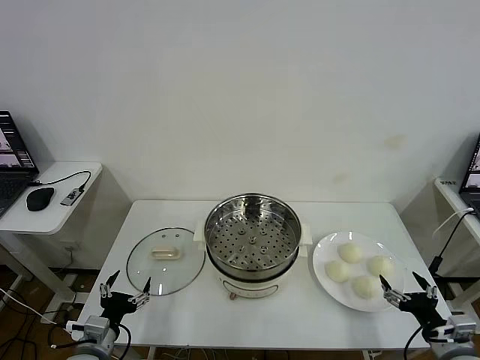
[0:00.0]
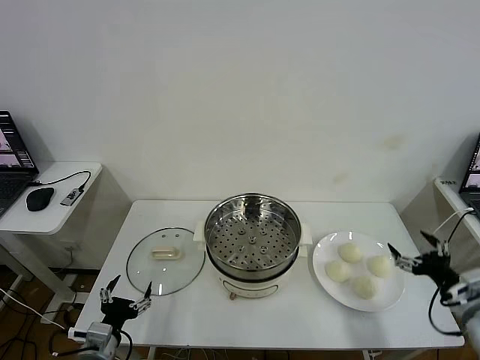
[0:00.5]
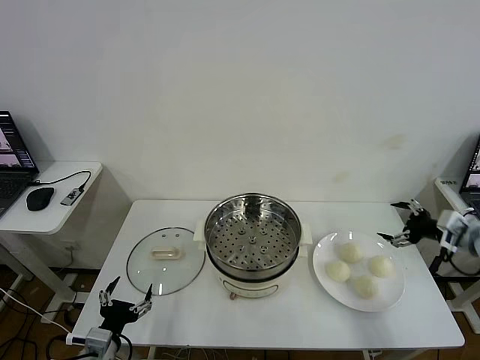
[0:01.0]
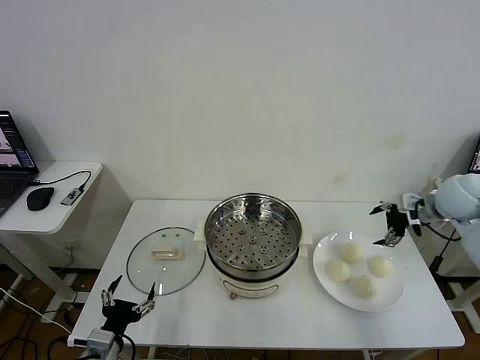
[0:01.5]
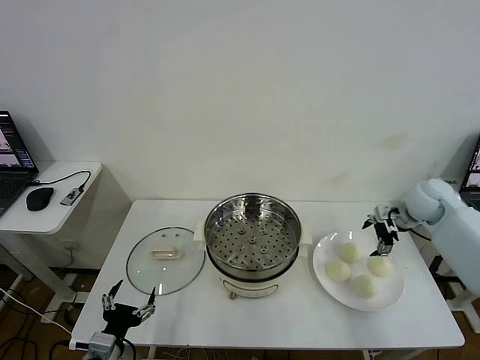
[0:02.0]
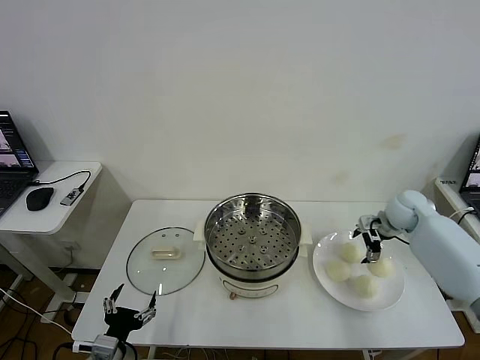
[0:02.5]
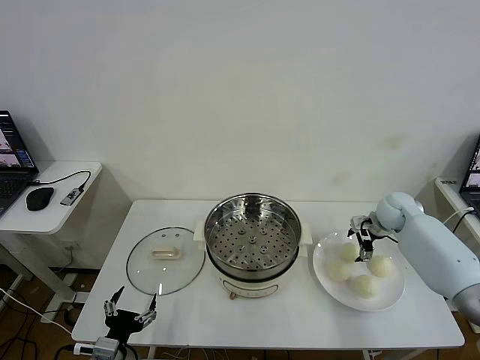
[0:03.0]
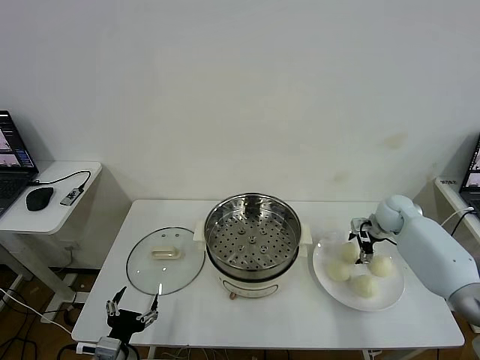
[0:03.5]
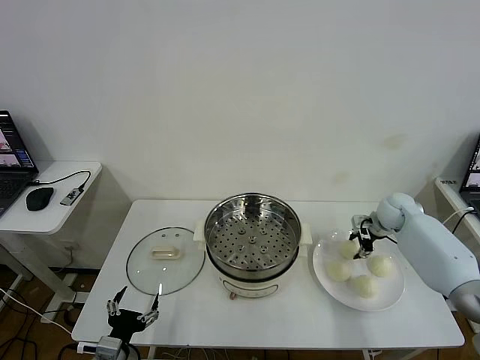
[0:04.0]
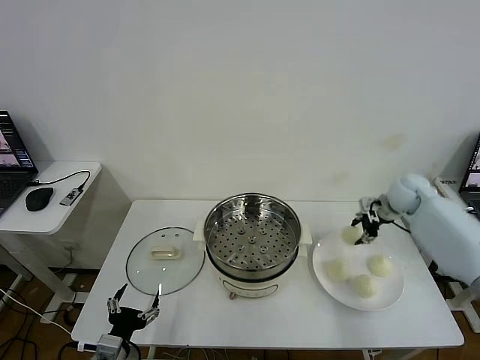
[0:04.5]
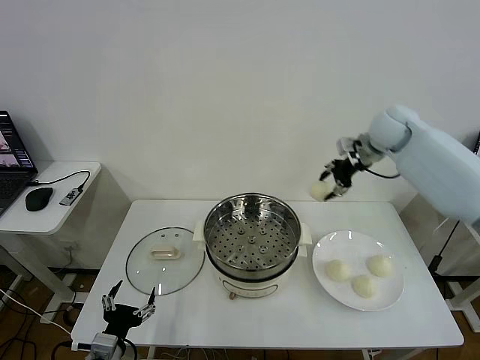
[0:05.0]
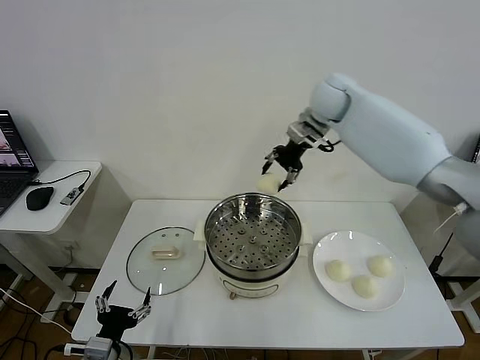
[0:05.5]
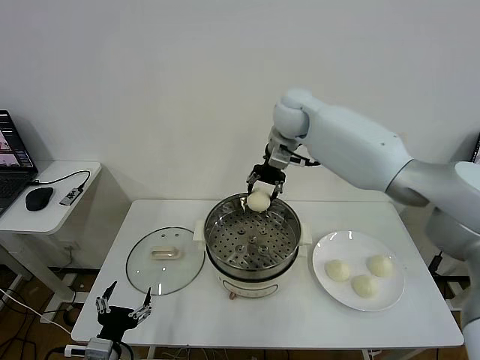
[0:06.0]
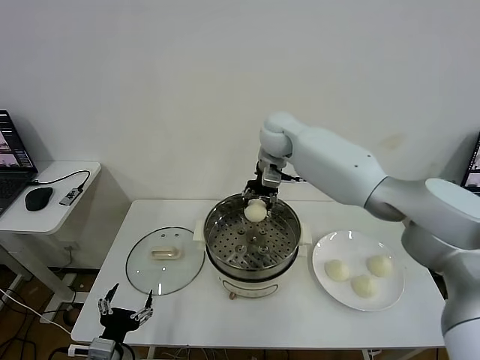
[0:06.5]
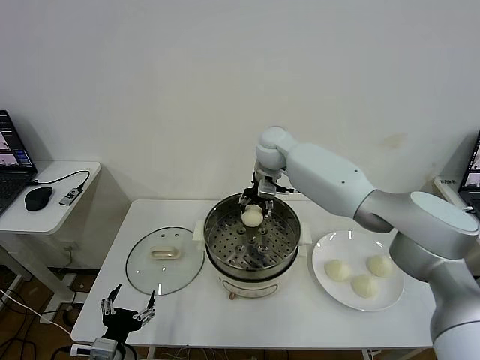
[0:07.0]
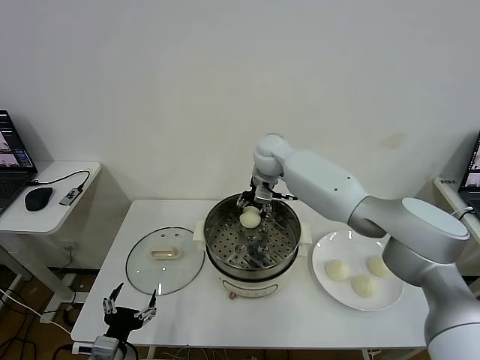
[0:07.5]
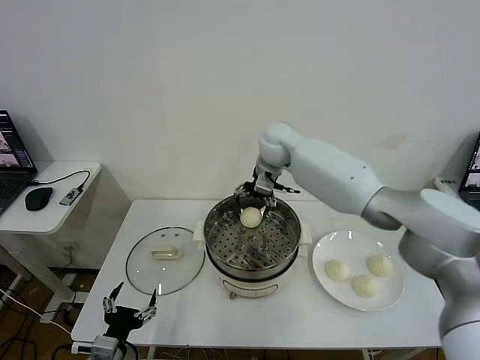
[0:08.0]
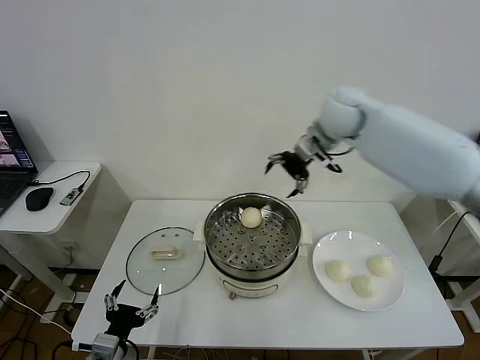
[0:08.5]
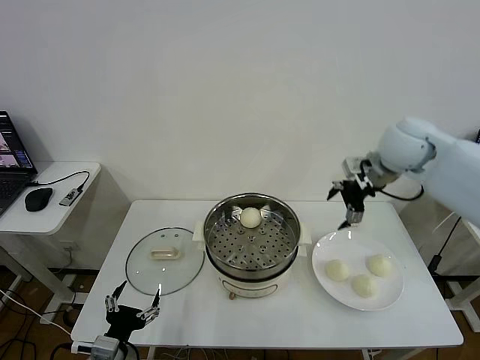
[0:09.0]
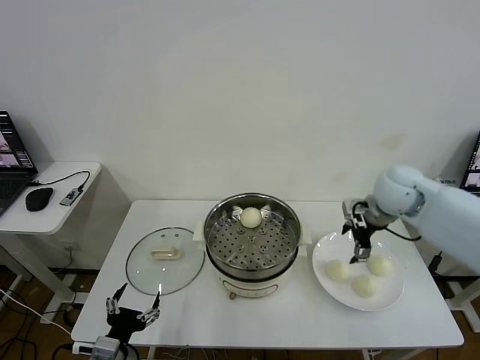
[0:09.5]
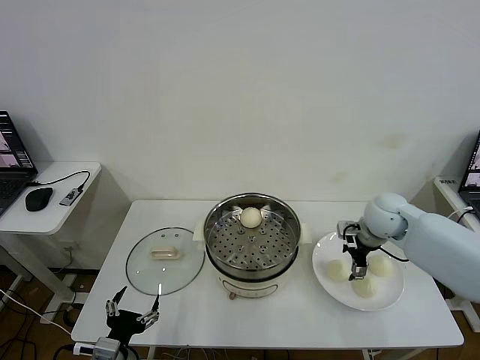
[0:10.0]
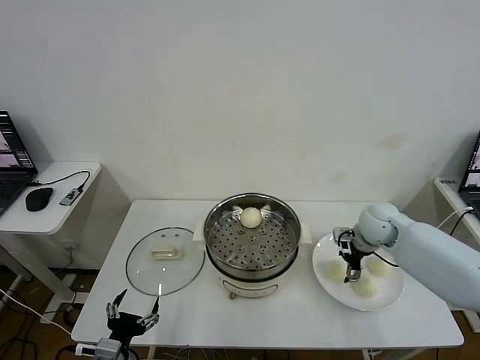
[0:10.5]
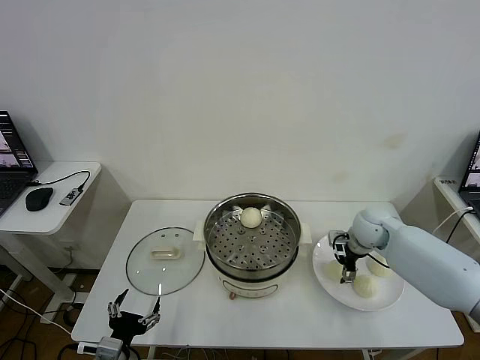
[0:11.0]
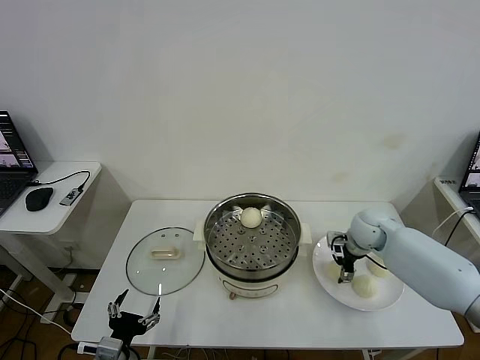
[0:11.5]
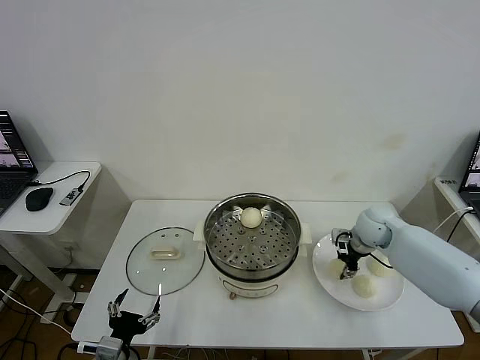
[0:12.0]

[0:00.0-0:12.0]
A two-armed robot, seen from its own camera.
Task of the whole recording: take steamed baozi put them in steamer then cover it.
Step, 0:00.0 to 0:03.5: Grasp the baozi in the plate with right gripper.
Step, 0:04.0 to 0:07.5: Place the baozi on the steamer with right gripper.
0:02.0 to 0:04.0: The right gripper is displaced downward by approximately 5 cm, and closes.
0:04.0 to 0:06.0: The right gripper goes approximately 40 cm to the left and upward.
0:06.0 to 0:08.0: The right gripper reaches approximately 10 cm downward, then returns, and opens its fingers.
0:08.0 to 0:10.0: The right gripper is displaced to the right, downward and backward by roughly 30 cm.
0:10.0 to 0:12.0: The right gripper closes.

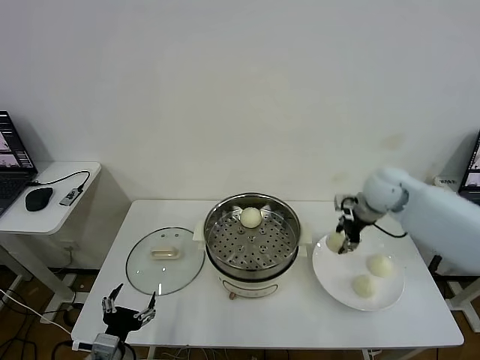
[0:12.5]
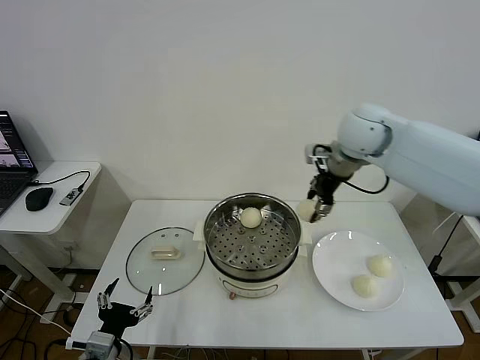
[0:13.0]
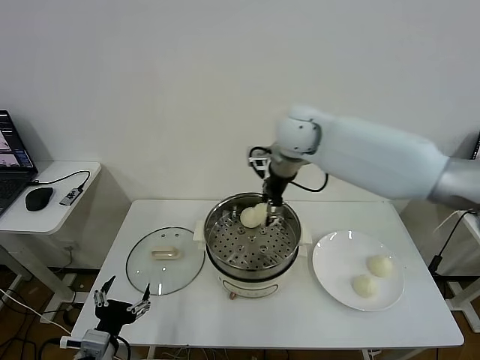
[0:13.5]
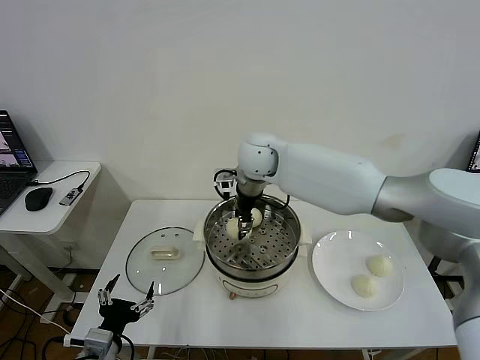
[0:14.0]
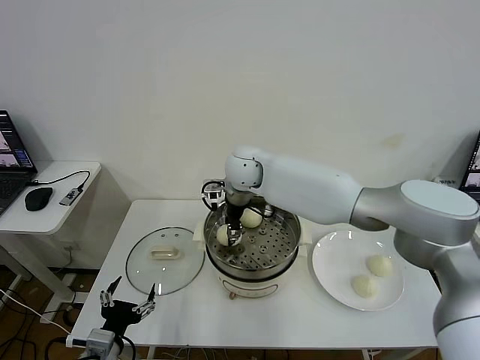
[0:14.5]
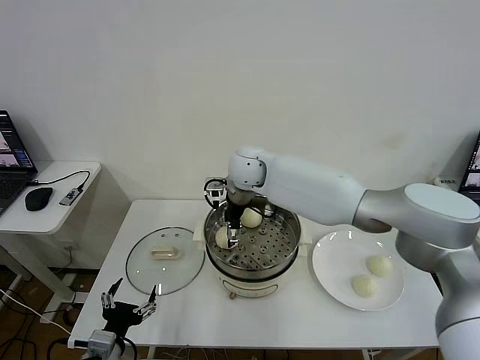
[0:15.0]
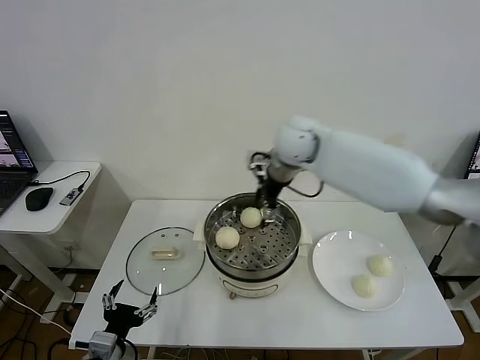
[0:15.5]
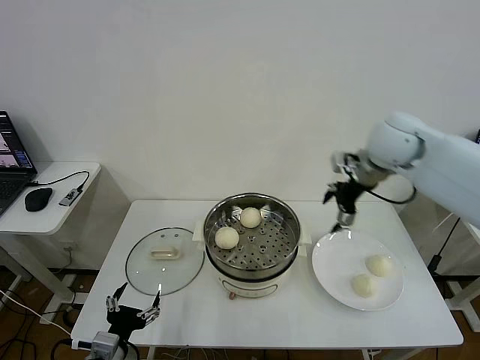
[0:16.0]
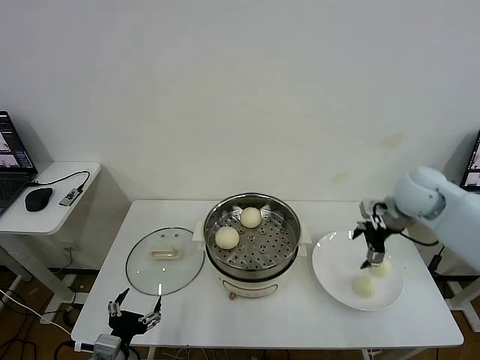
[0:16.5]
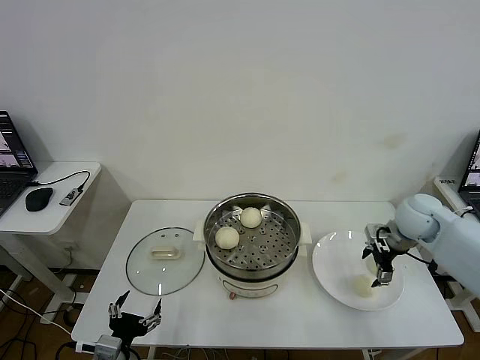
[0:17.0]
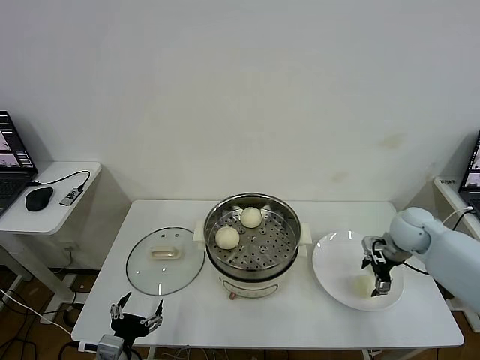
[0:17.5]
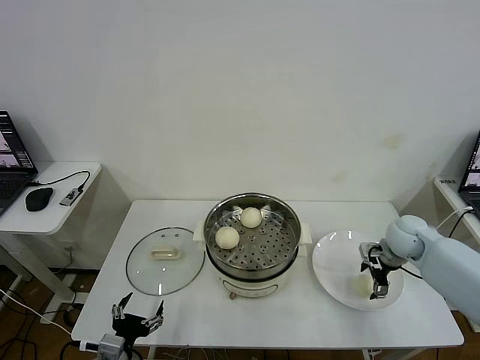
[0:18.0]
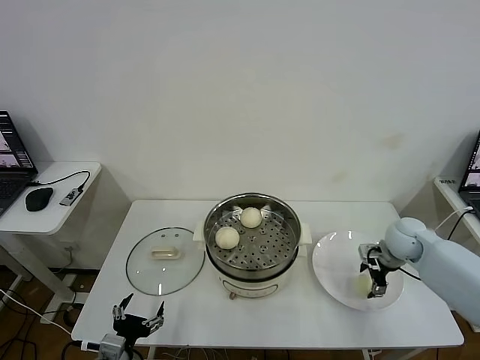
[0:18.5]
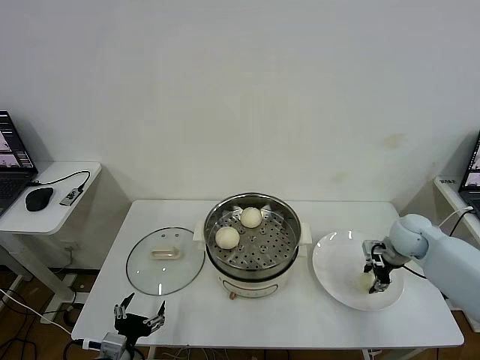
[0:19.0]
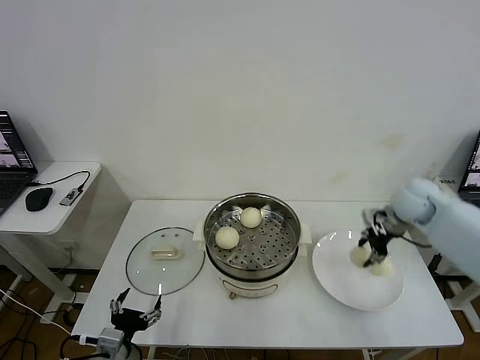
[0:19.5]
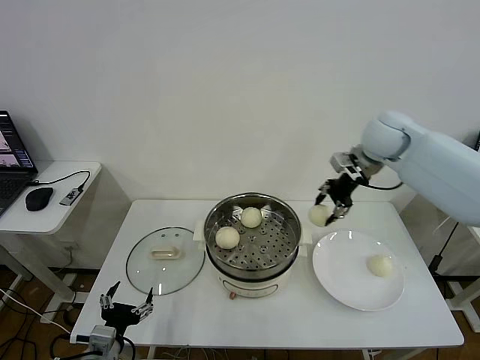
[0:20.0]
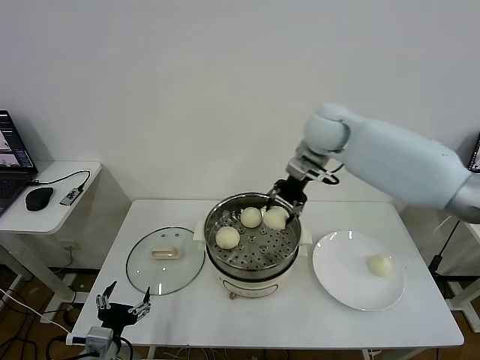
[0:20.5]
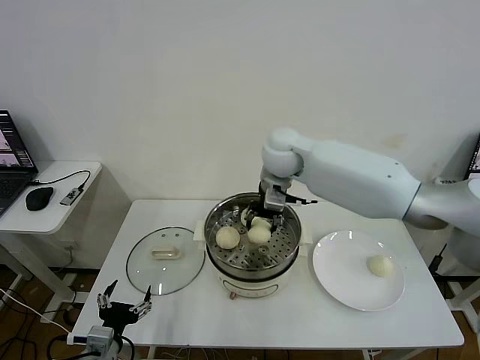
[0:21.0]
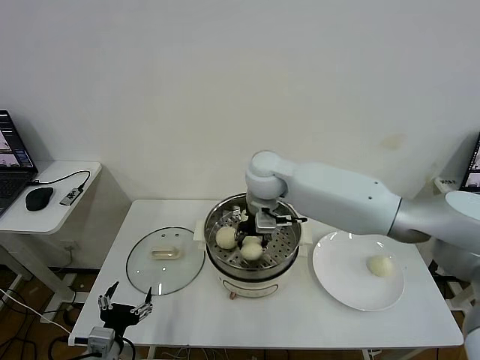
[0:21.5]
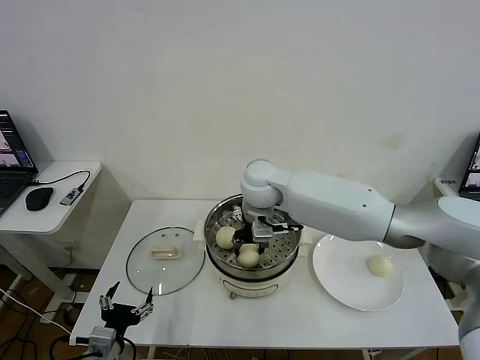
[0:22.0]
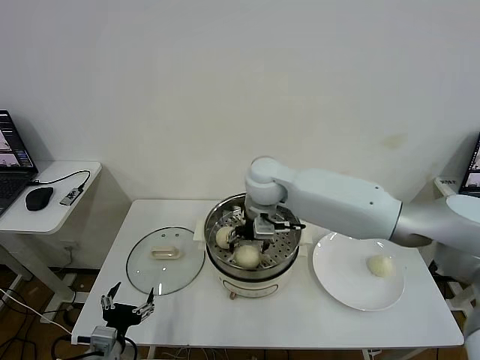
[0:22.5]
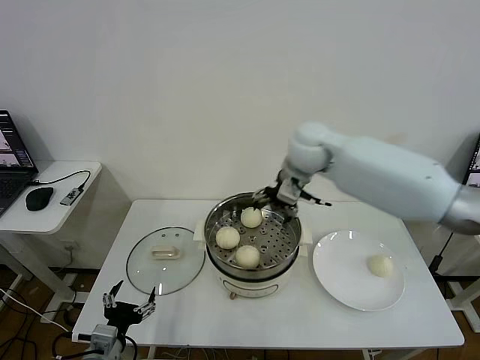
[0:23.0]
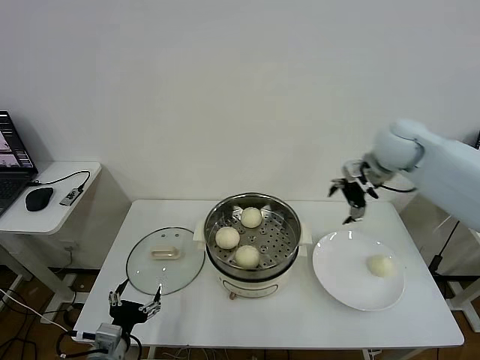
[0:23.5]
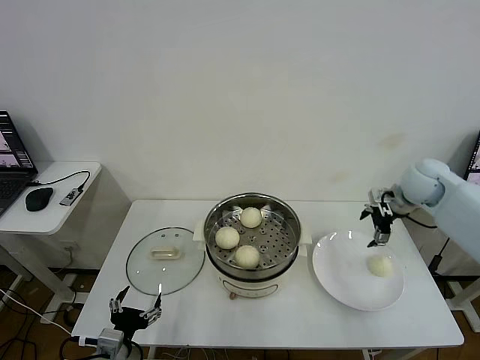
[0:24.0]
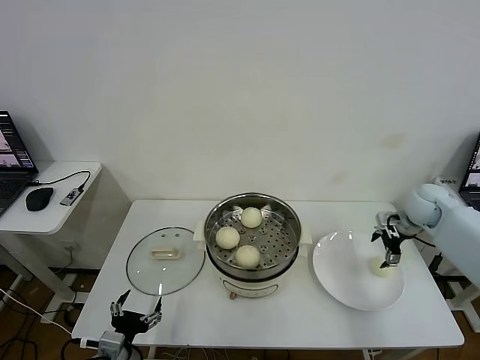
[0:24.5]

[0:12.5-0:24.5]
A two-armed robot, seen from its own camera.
Task of the whole recording: take steamed baozi put them in steamer then cover it.
Step, 0:12.5 to 0:15.0: Place the baozi on the steamer with right gripper.
Step, 0:15.5 to 0:19.0: Grasp the baozi in the plate with right gripper.
Step, 0:19.5 to 0:22.5: Place the baozi on the steamer with right gripper.
0:12.5 to 0:14.5: The right gripper heads to the left, covering roughly 30 cm.
0:14.5 to 0:16.5: The right gripper travels to the right by roughly 35 cm, and opens.
0:16.5 to 0:18.5: The right gripper heads downward, covering roughly 15 cm, and closes.
0:18.5 to 0:20.5: The right gripper moves to the left, upward and forward, some 35 cm, and closes its fingers.
0:20.5 to 0:22.5: The right gripper travels to the left, downward and backward by about 15 cm, and opens.
0:22.5 to 0:24.5: The right gripper moves to the right, some 40 cm.

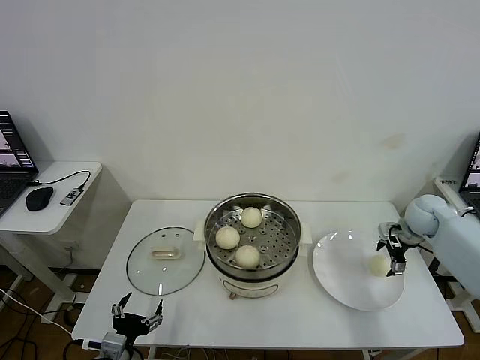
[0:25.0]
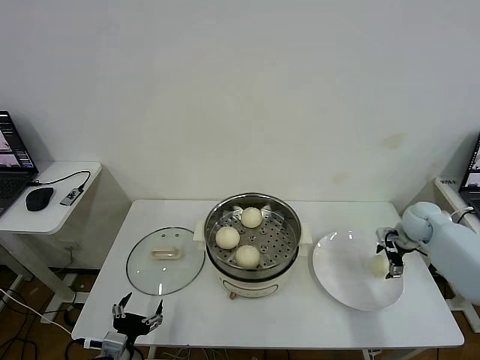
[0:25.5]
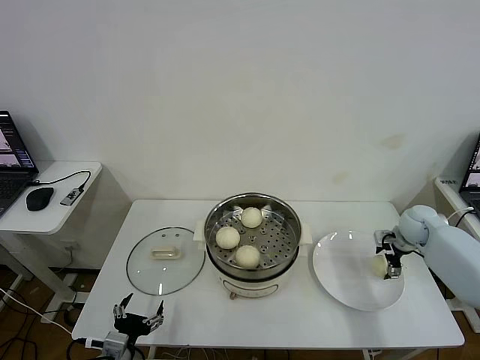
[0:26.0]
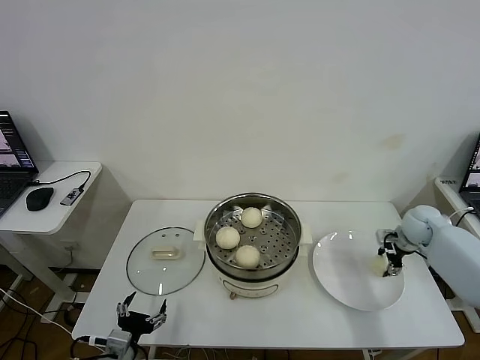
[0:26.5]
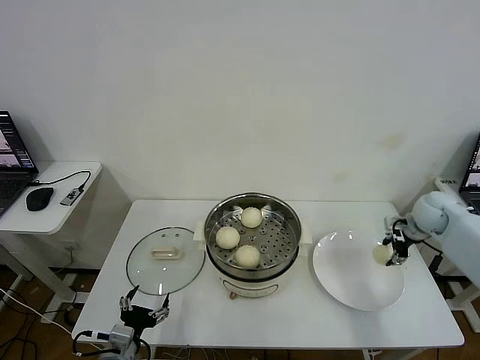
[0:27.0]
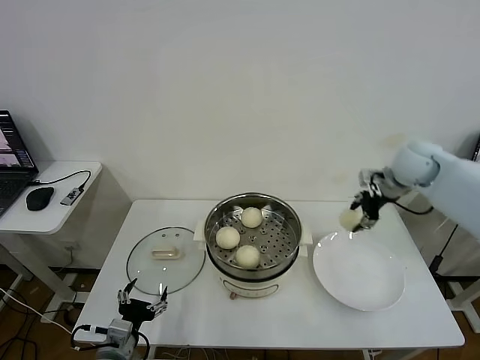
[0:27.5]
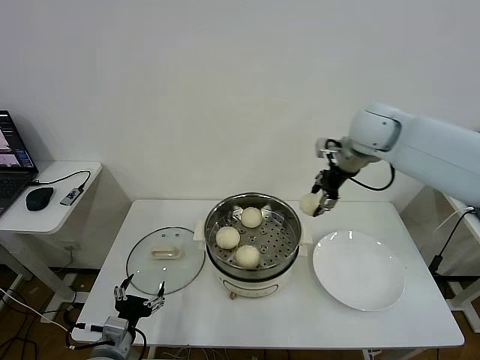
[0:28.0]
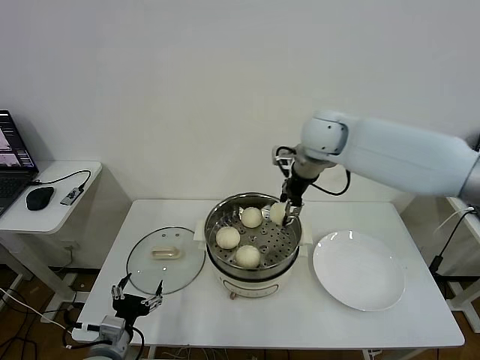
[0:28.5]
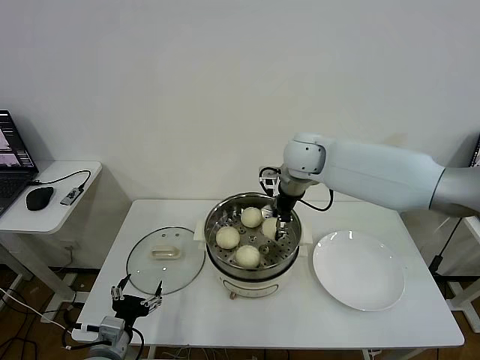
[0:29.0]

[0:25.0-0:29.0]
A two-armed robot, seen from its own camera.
Task of the whole recording: take steamed baozi put them in steamer then cover it.
0:25.0 to 0:27.0: The right gripper closes up.
0:27.0 to 0:29.0: The right gripper goes approximately 35 cm to the left.
